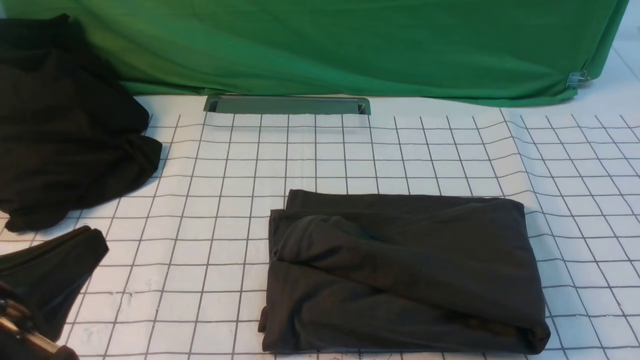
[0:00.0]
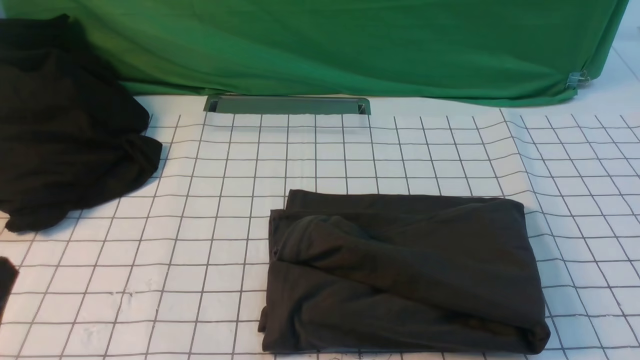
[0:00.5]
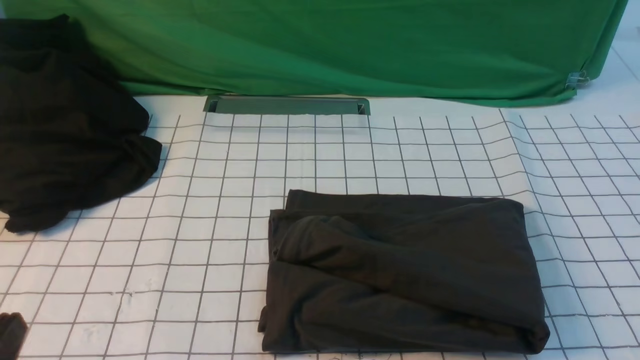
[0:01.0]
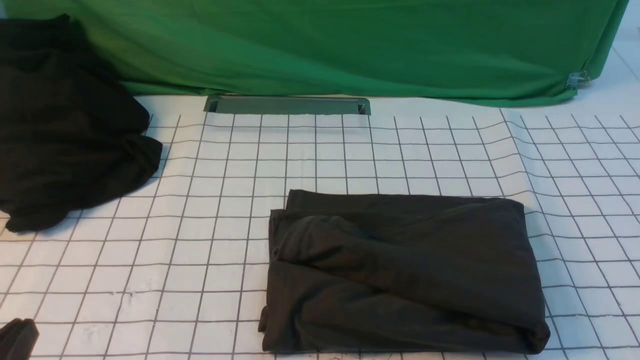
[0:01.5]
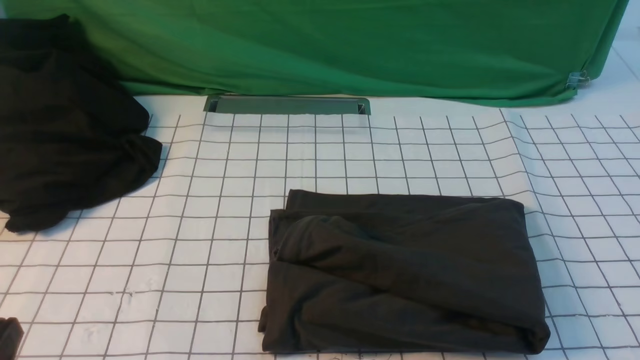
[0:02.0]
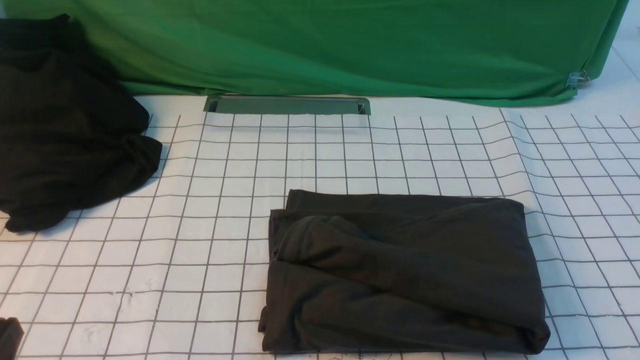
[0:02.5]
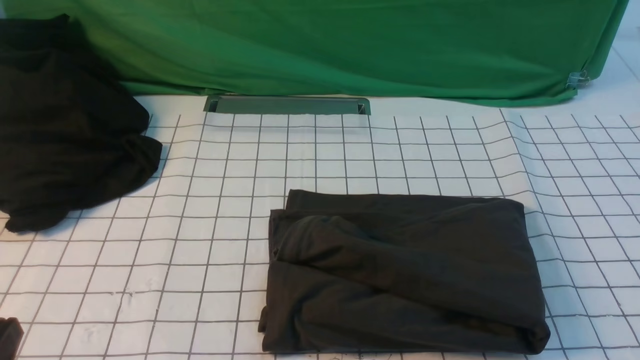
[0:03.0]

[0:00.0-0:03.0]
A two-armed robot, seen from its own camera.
0.0 to 1.5 s: The left gripper travels downward by approximately 10 cm.
1.5 to 3.0 s: Both grippers stay put.

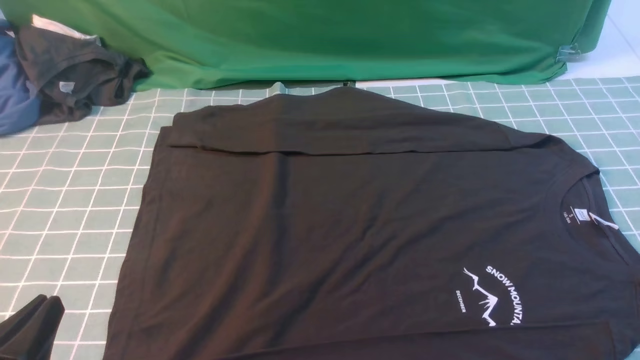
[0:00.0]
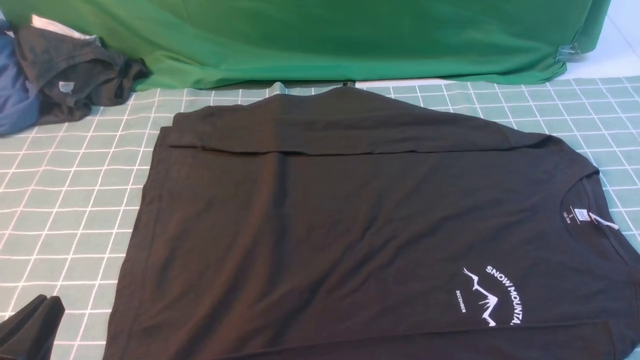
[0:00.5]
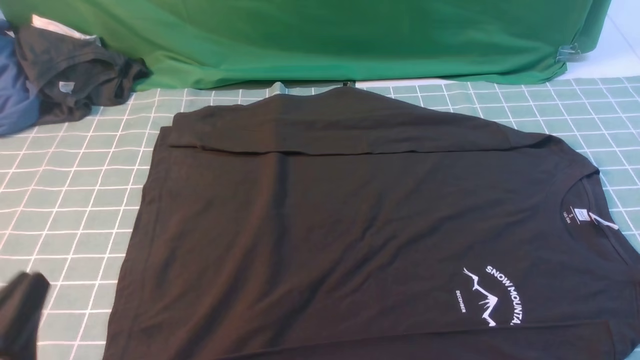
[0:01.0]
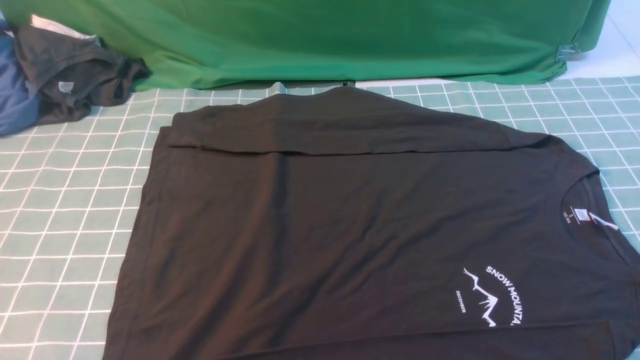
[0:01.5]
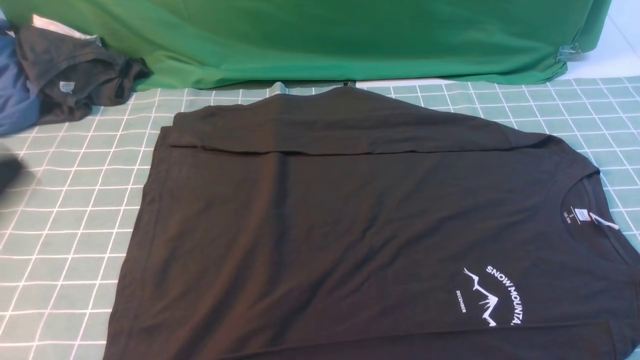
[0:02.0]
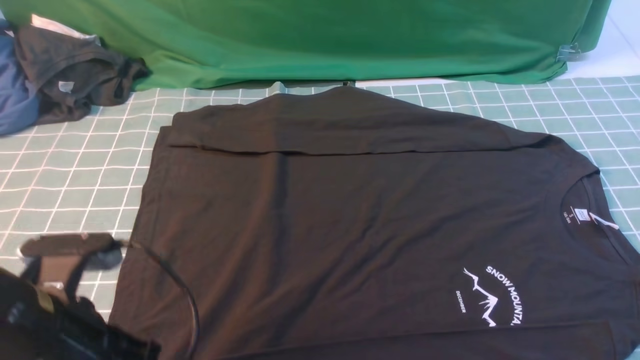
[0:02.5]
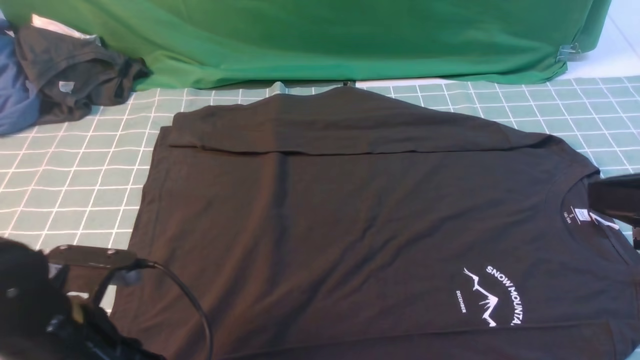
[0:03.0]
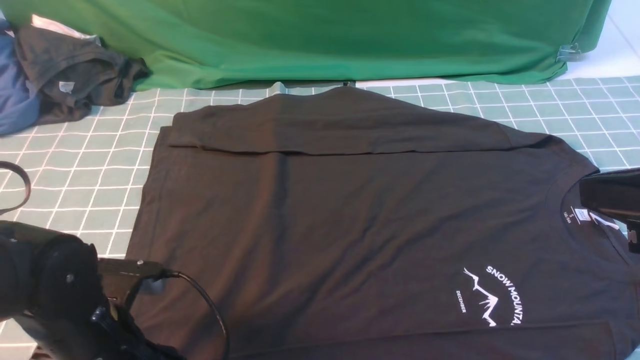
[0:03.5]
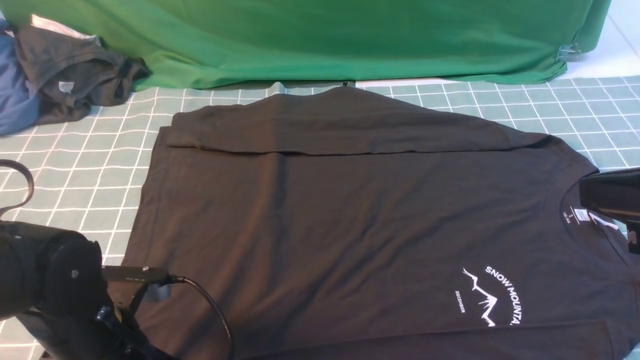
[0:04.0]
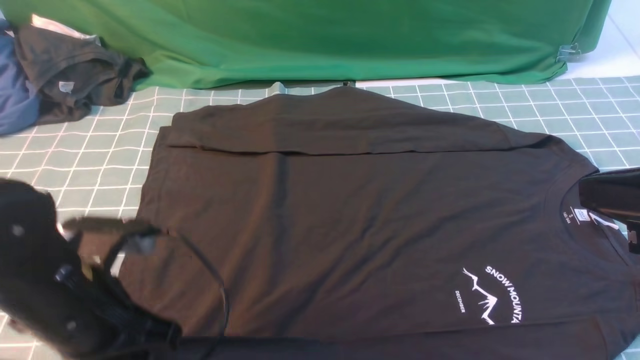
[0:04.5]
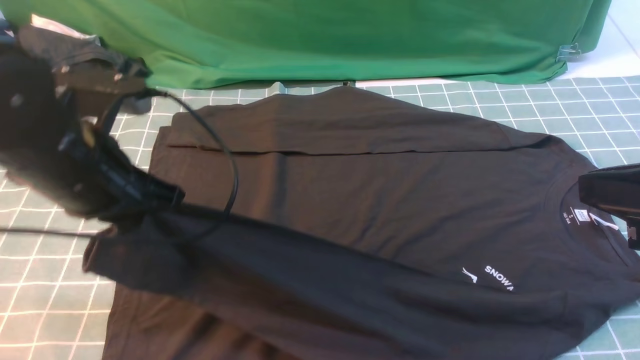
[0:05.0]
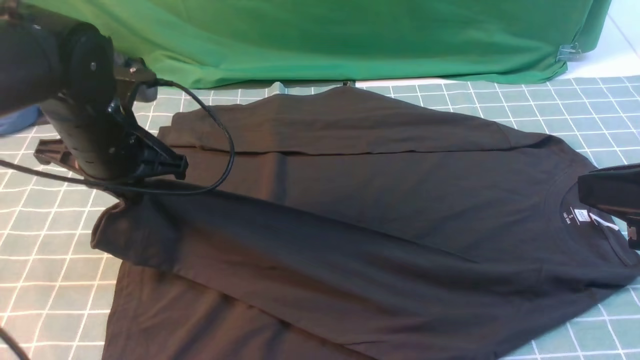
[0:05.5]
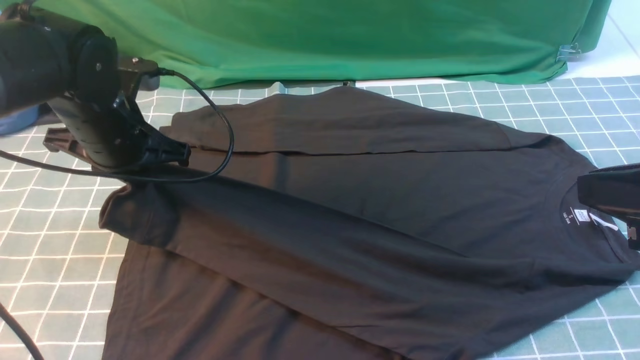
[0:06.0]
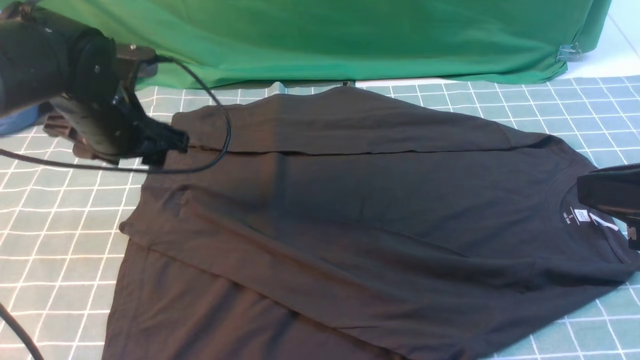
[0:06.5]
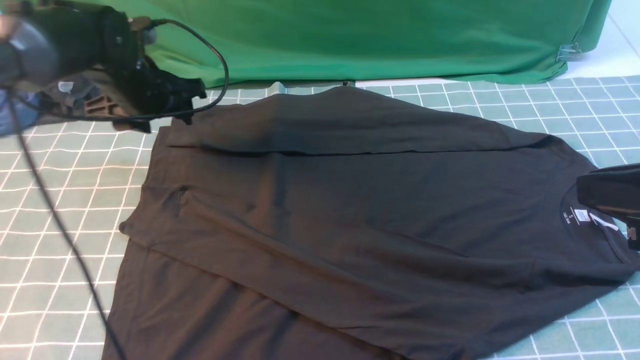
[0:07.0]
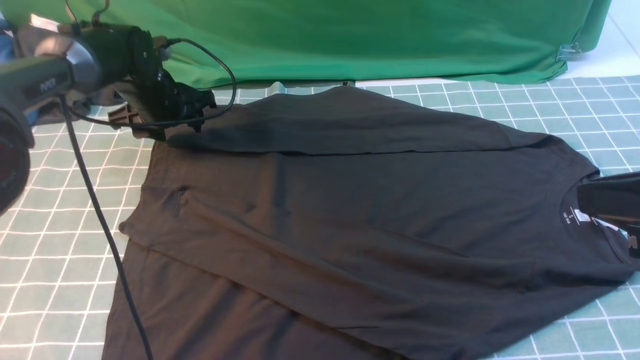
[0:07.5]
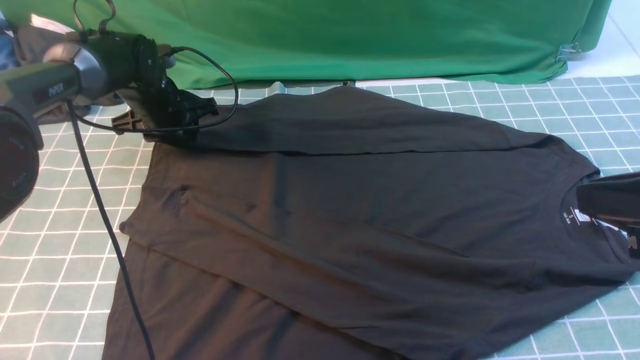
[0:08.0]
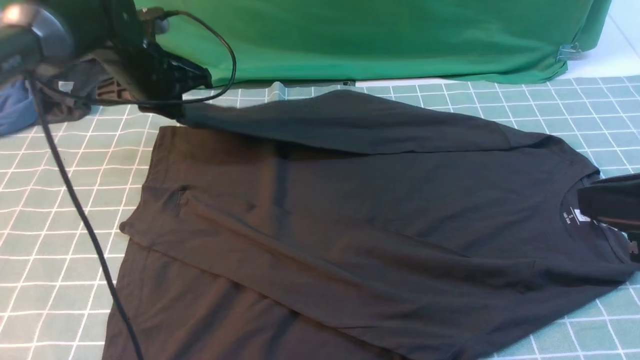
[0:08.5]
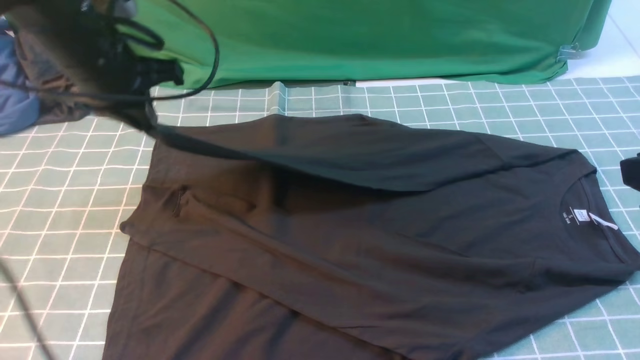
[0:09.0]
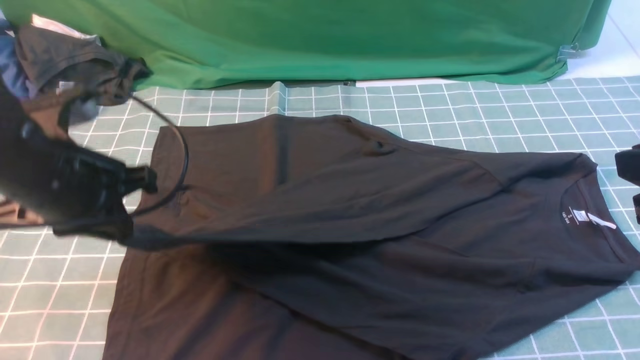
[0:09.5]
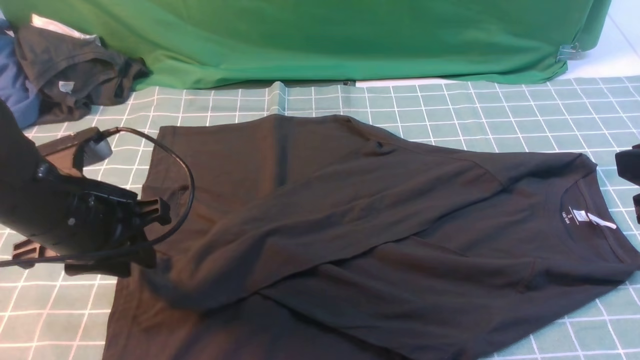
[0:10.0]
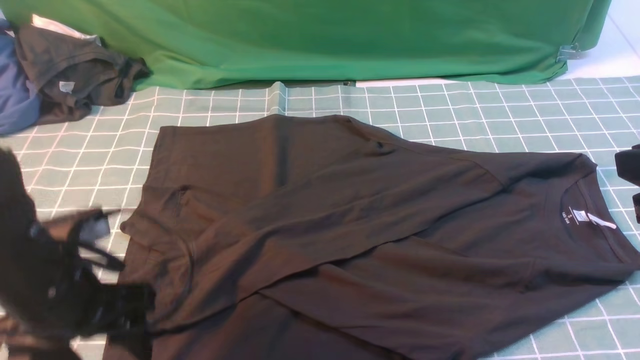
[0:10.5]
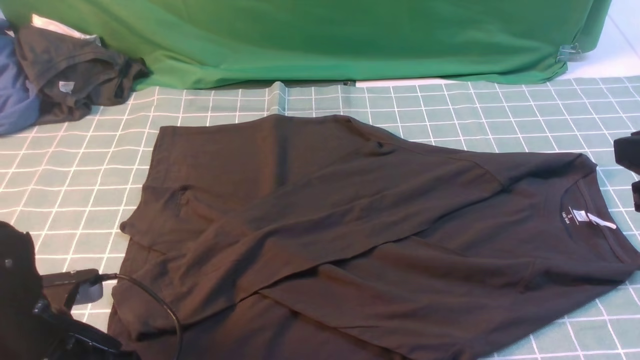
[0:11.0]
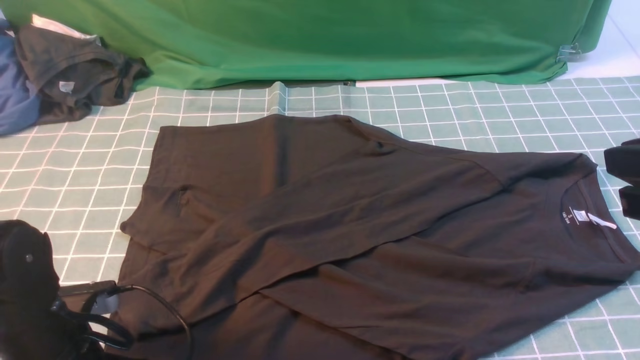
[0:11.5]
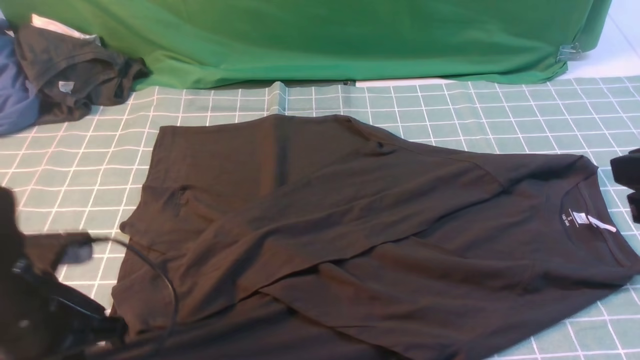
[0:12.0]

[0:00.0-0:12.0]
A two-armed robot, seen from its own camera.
Step, 0.0 to 4.5 s: use the left arm to clamp the cuff closest to it.
Step, 5.0 to 6.5 s: use the left arm to drag and place the cuff at the centered position on the left edge of the fabric.
Step, 7.0 to 8.5 s: use the left arm to clamp the cuff farthest from it.
Step, 9.0 to 10.0 s: use the left arm to drag and drop the cuff onto the cuff closest to the left arm.
0.0 to 2.0 s: The left gripper heads upward and forward, covering approximately 15 cm.
2.0 to 4.0 s: The left gripper goes approximately 15 cm downward, and opens, then closes again, while the right gripper heads upward, forward and to the left, covering some 15 cm, and closes up.
4.0 to 6.0 s: The left gripper travels forward and upward by approximately 20 cm.
6.0 to 8.0 s: The left gripper travels forward and downward by about 15 cm, and opens, then closes once more.
8.0 to 10.0 s: The left gripper heads backward, covering approximately 25 cm, and closes, then opens again.
10.0 to 12.0 s: The left gripper travels backward by about 5 cm, and closes up.

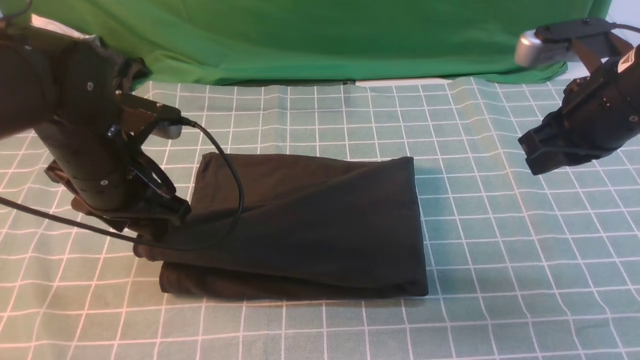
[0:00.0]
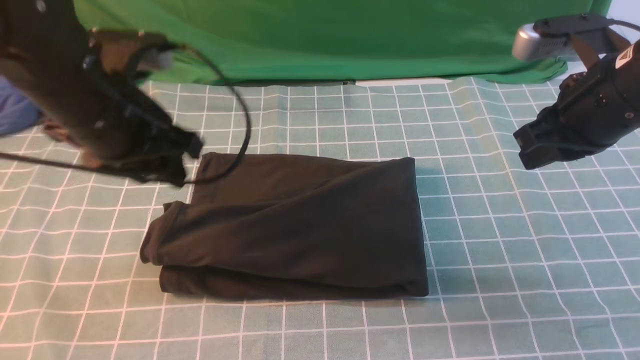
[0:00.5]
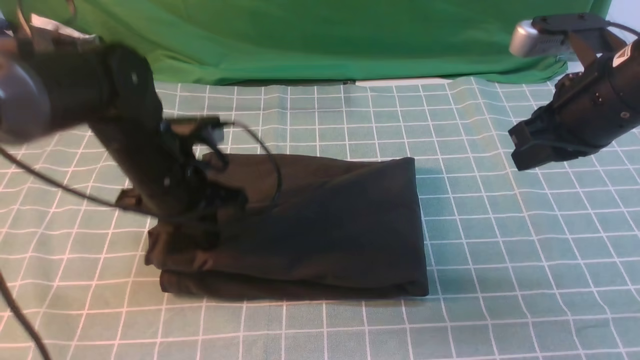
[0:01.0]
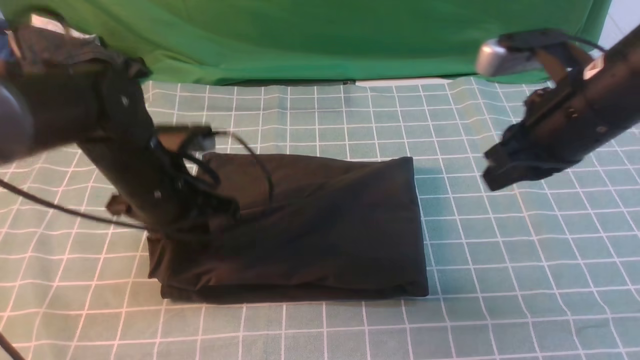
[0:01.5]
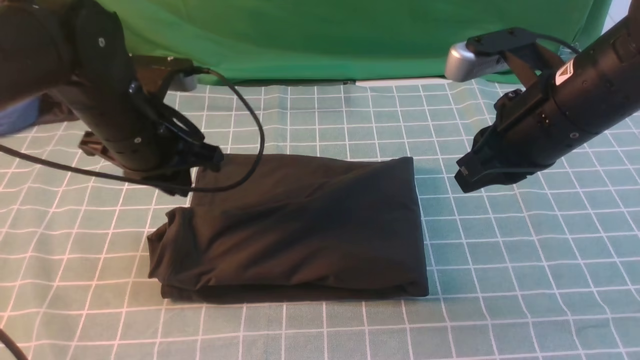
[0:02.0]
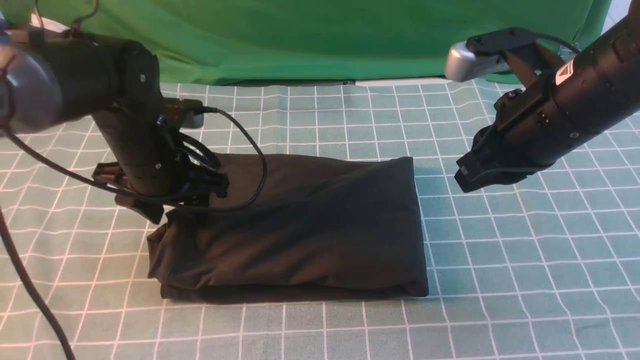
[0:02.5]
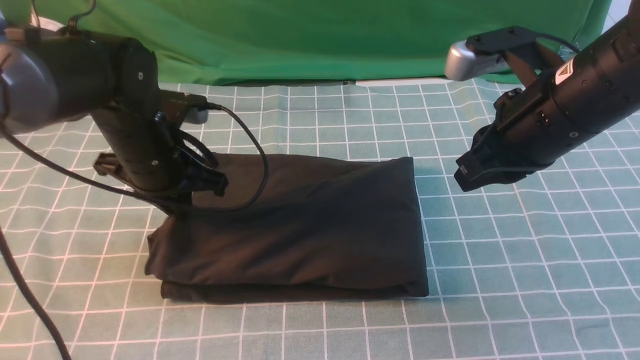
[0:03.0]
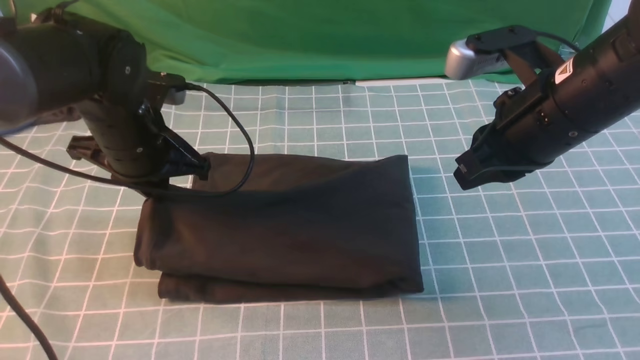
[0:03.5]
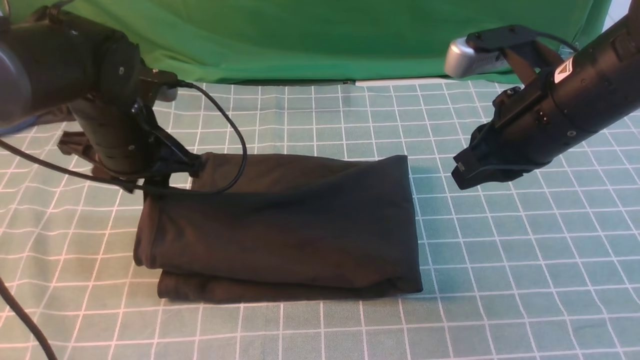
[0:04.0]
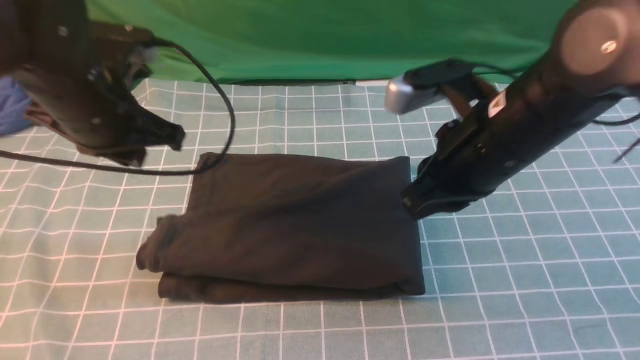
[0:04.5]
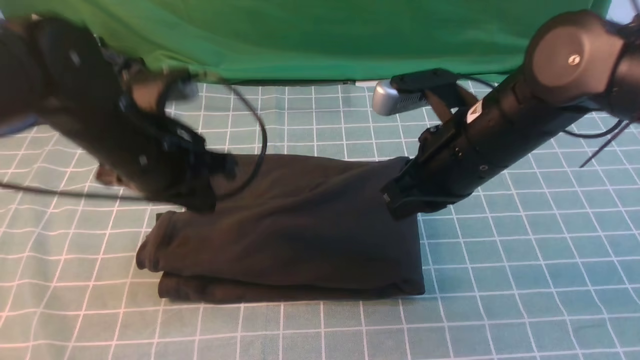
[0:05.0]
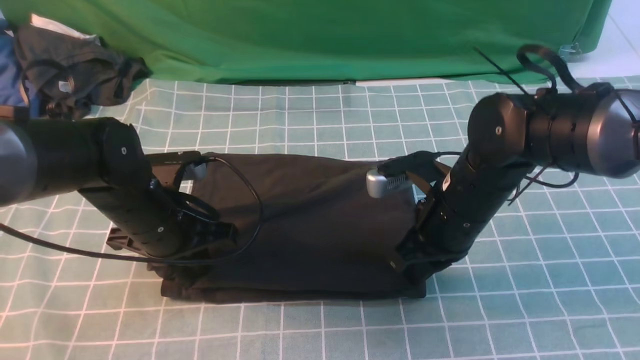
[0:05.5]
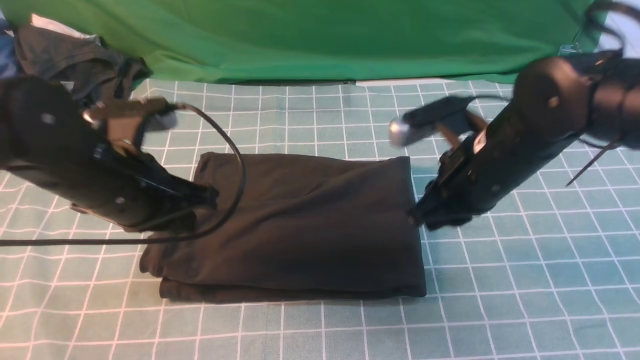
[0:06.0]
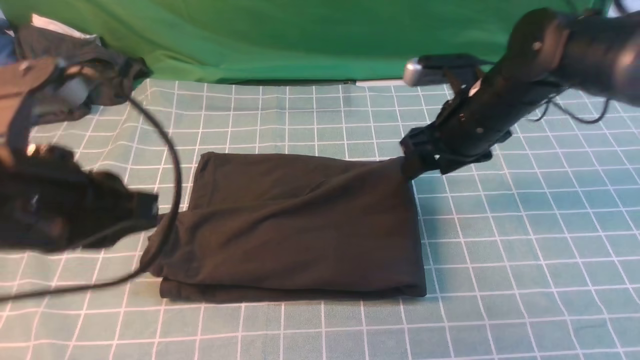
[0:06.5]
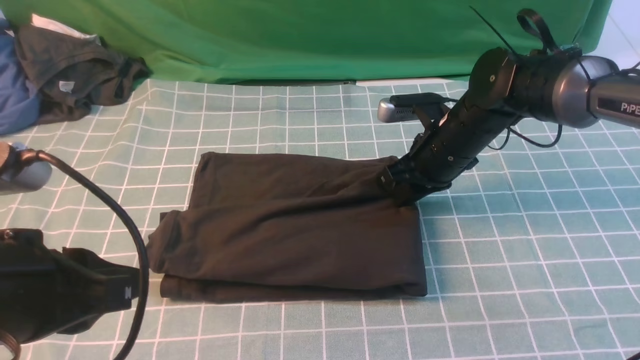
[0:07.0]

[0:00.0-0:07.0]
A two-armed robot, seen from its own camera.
0.0 to 2.0 s: The left gripper swings up and down, roughly 10 cm each way, with 2 reversals, and closes. The right gripper heads to the left, covering some 5 cm.
2.0 to 3.5 s: The left gripper opens and closes again.
3.5 to 5.0 s: The left gripper opens, then closes again. The right gripper goes some 10 cm to the left and downward.
5.0 to 7.0 s: The left gripper shifts some 20 cm backward. The right gripper travels forward and downward by approximately 15 cm, and opens and closes again.
